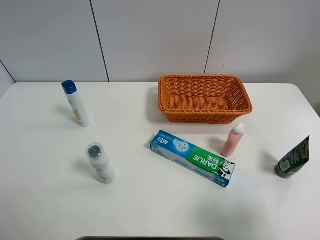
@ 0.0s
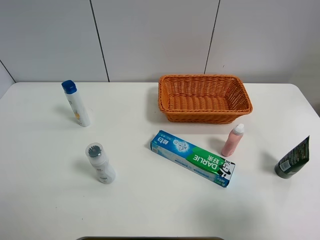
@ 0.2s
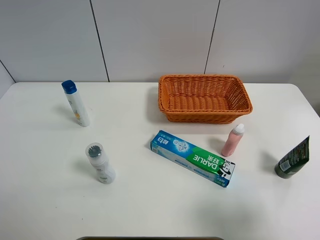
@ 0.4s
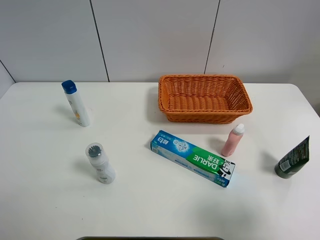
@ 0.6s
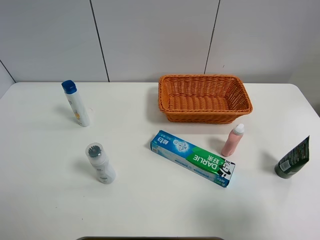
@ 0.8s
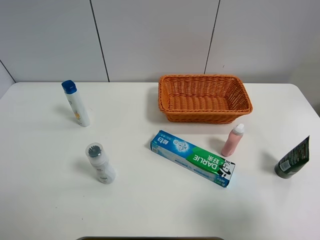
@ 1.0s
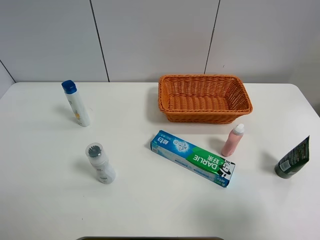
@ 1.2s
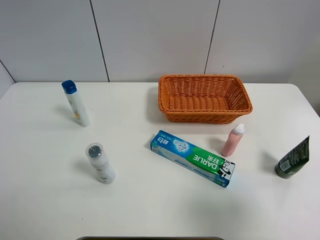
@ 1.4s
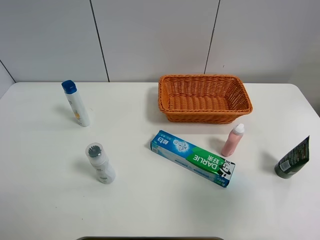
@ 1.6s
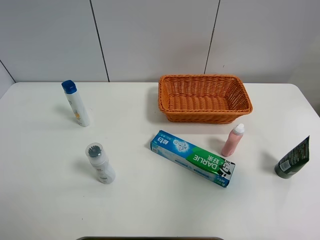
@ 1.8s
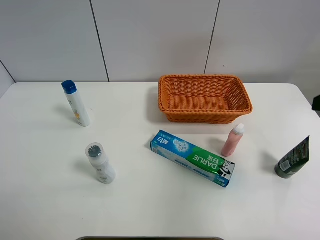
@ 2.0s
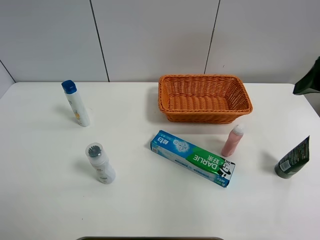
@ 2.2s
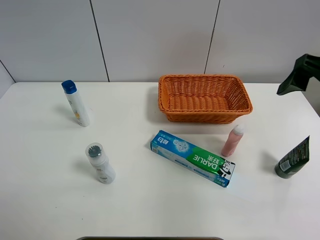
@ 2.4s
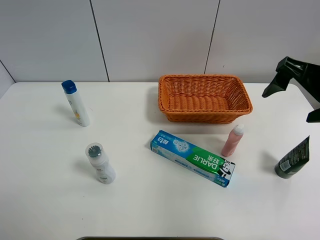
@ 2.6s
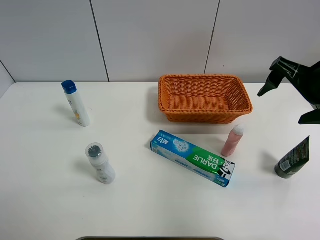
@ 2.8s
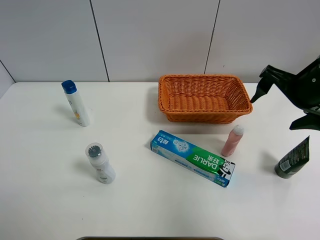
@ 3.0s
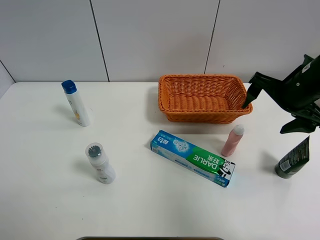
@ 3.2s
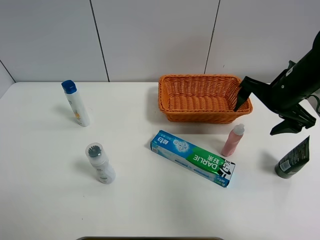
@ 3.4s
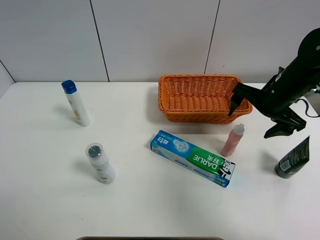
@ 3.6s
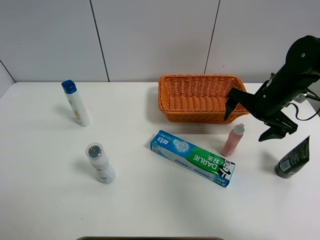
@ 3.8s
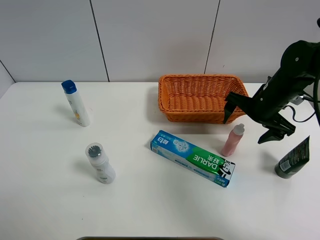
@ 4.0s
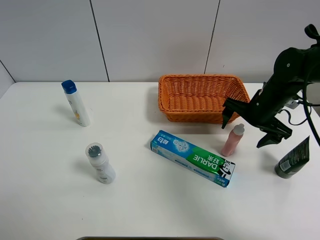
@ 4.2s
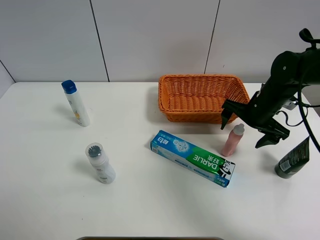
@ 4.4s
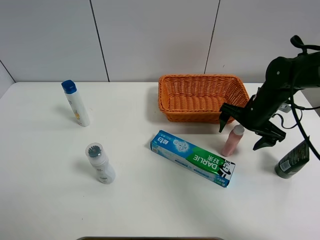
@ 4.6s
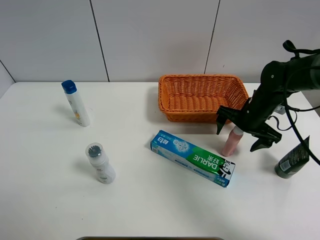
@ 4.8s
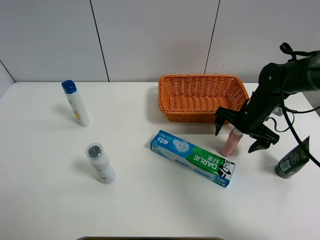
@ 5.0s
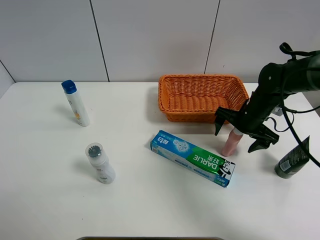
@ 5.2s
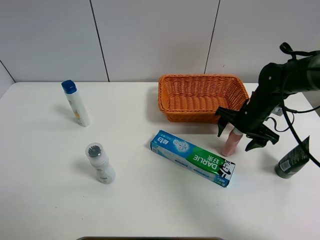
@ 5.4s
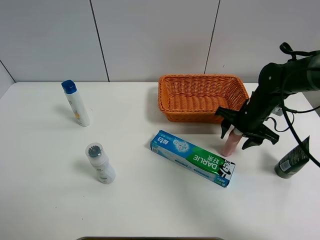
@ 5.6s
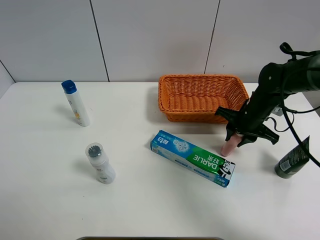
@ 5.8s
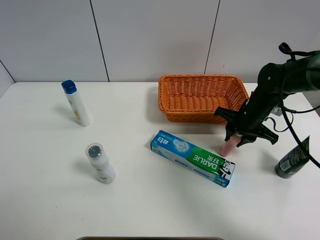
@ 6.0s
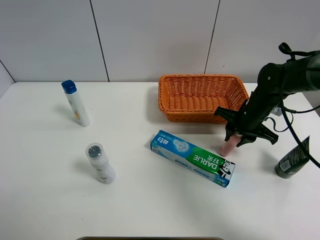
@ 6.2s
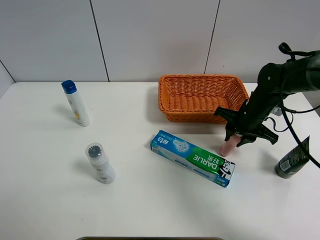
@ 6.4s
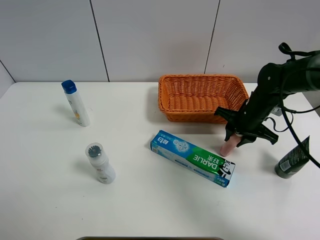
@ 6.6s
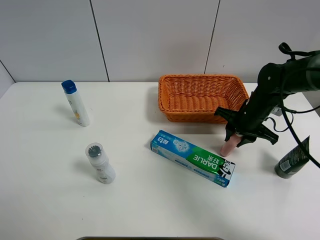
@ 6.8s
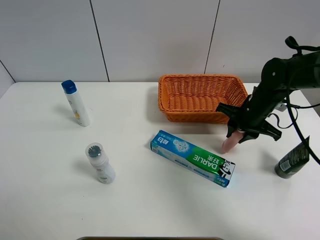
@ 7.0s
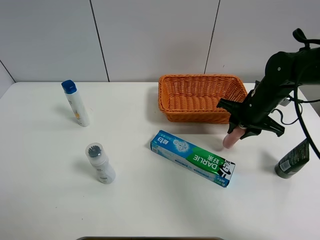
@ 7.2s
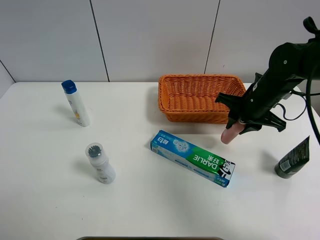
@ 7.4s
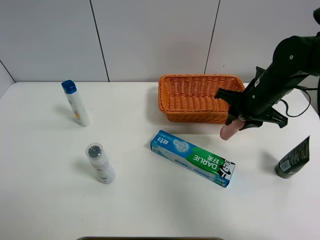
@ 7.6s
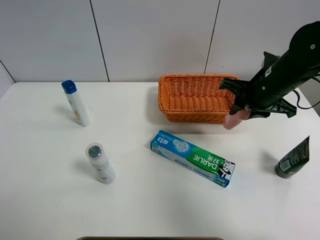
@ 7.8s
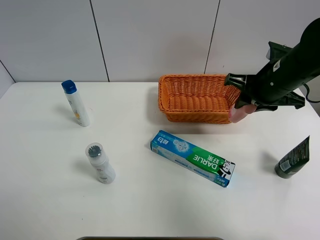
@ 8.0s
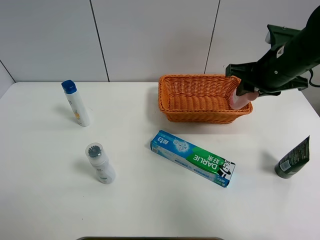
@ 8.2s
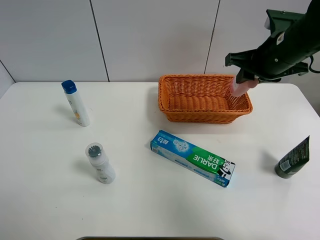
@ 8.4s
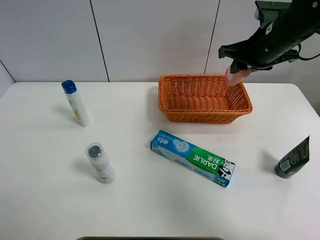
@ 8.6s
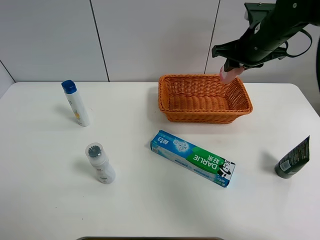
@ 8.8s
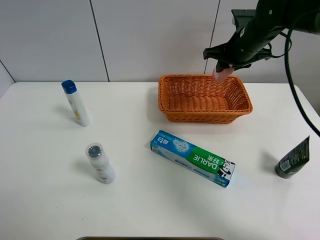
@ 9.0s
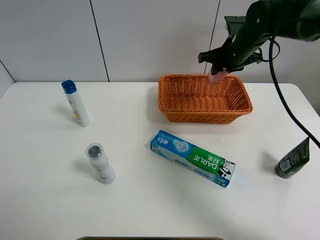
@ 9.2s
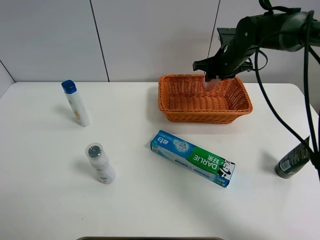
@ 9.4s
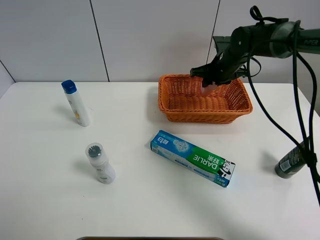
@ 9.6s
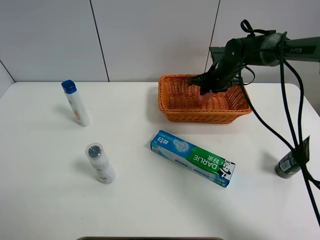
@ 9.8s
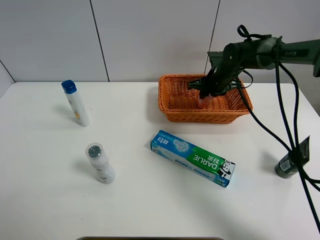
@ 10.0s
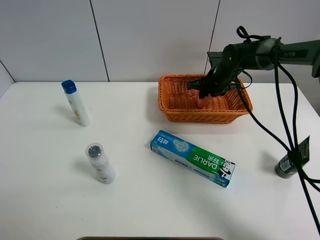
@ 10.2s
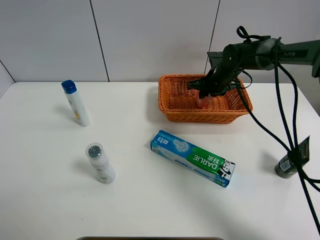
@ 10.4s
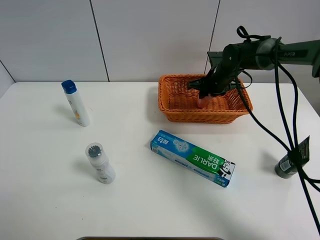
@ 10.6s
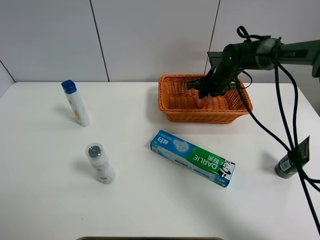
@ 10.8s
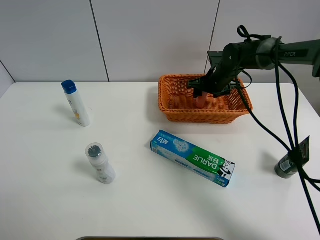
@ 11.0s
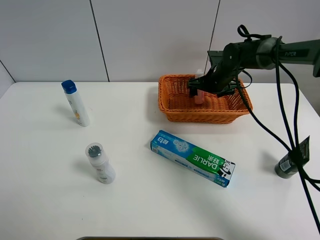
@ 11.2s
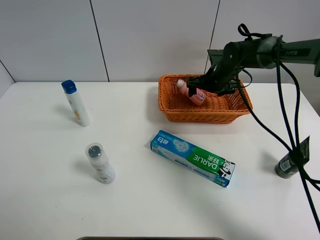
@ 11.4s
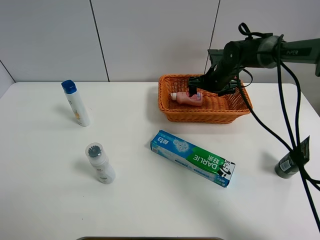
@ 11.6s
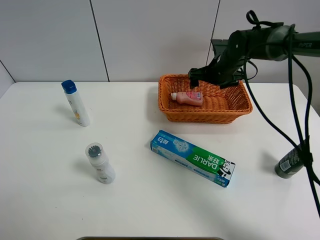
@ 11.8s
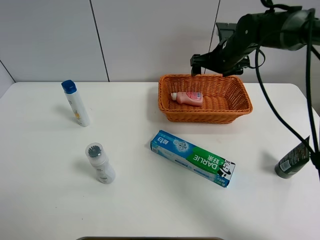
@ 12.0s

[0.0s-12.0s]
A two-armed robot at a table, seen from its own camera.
Task of the whole recording: Place the object closest to the toothpaste in the basket.
Step, 0.0s to 5.8s: Grasp the pink laundry detergent with right gripper.
Step, 6.0s to 12.0s: Place the pink laundry detergent in the basket with right gripper.
0.0s to 1.6s: The right gripper travels upward by some 5 cm.
1.6s to 3.0s: The right gripper moves forward, about 20 cm.
3.0s to 4.4s: The right gripper goes approximately 15 cm downward and forward.
4.4s to 6.0s: The right gripper closes up.
6.0s to 7.6s: The right gripper travels upward by roughly 10 cm.
7.6s to 9.0s: The right gripper shifts roughly 10 cm forward.
9.0s to 10.4s: The right gripper heads downward, covering roughly 10 cm.
10.4s to 12.0s: The right gripper travels upward by about 10 cm, and opens.

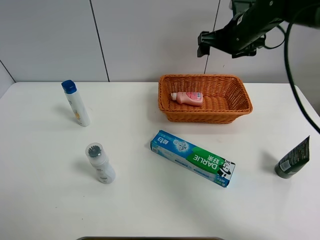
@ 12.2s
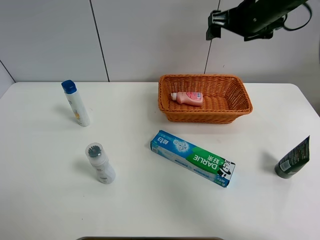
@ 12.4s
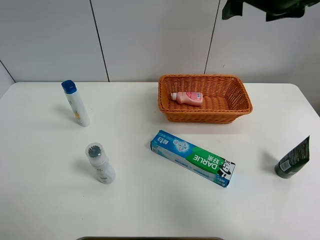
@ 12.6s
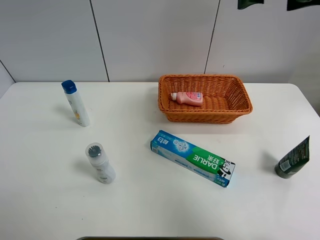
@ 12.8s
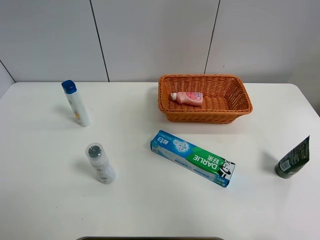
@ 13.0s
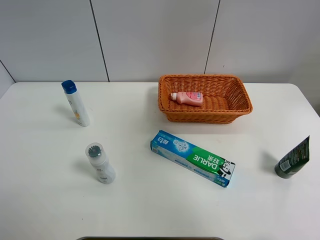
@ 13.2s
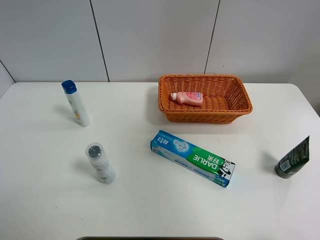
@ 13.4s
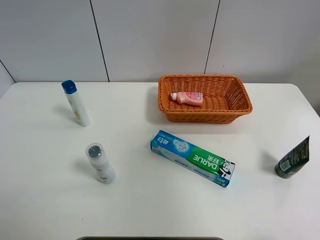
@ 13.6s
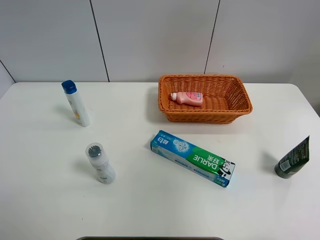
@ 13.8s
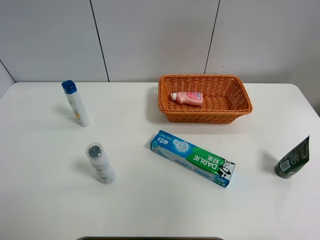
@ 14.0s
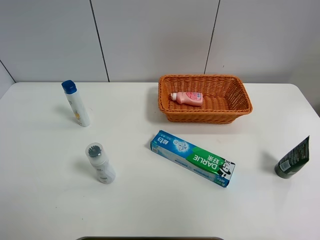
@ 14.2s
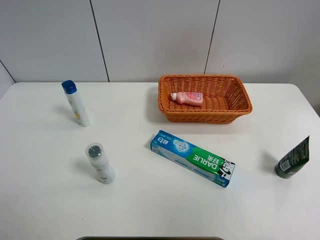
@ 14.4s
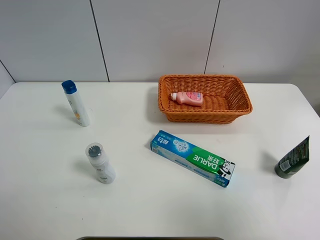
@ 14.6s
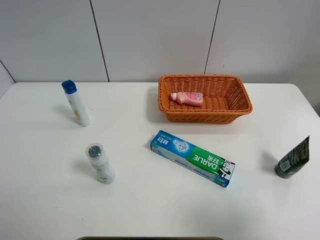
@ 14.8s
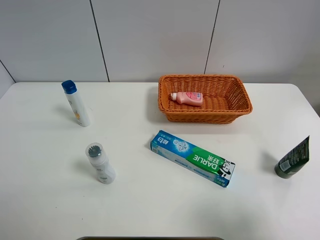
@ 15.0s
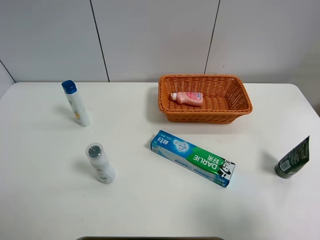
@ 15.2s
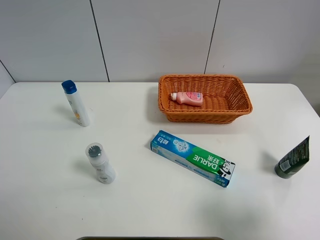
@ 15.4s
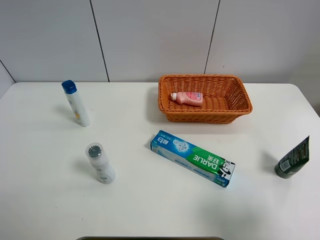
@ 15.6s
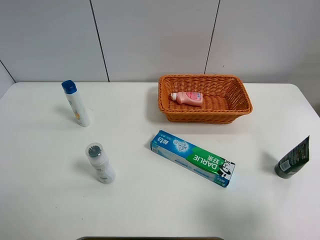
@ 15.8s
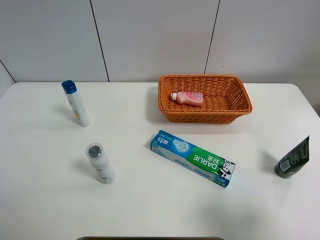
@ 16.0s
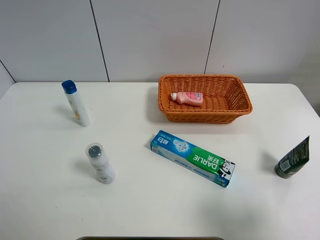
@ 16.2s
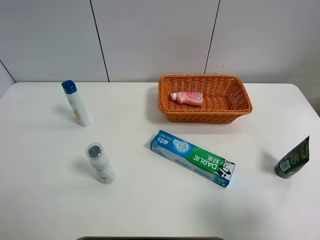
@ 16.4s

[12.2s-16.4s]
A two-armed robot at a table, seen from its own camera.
Task of the whole recording: Place the object closest to the toothpaste in the basket.
12.2s to 13.6s: The right gripper is displaced backward and upward by approximately 40 cm.
13.6s to 15.0s: The right gripper goes approximately 25 cm downward and backward.

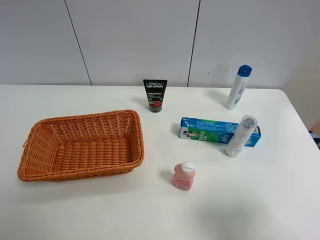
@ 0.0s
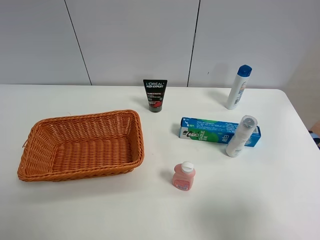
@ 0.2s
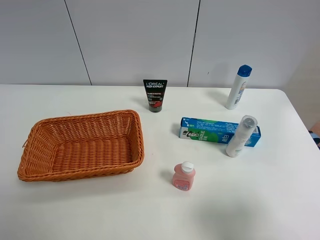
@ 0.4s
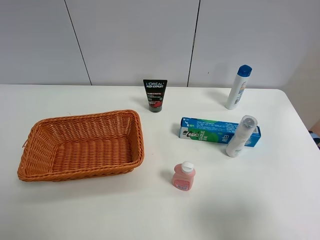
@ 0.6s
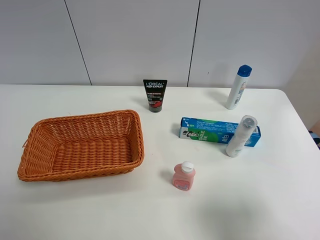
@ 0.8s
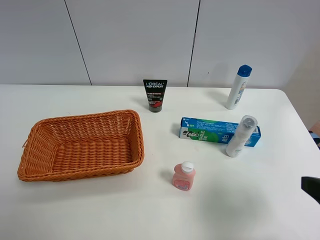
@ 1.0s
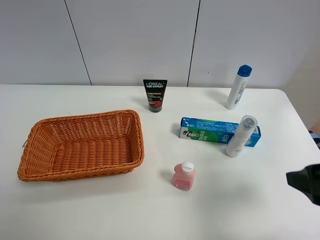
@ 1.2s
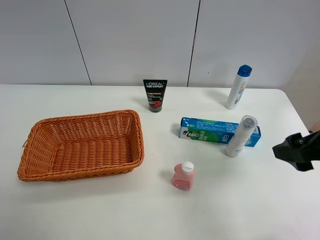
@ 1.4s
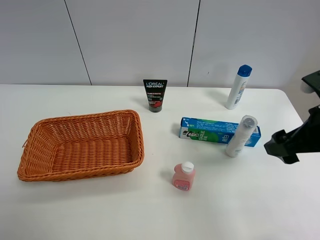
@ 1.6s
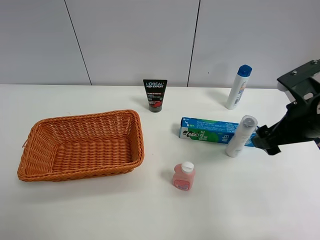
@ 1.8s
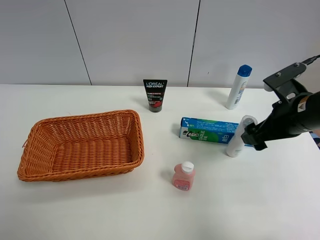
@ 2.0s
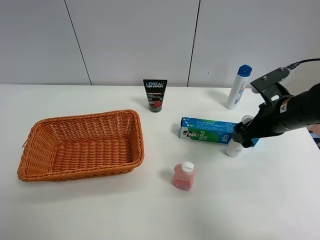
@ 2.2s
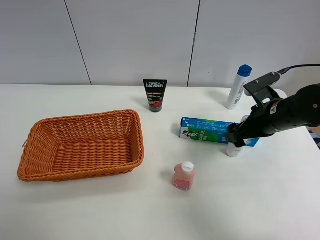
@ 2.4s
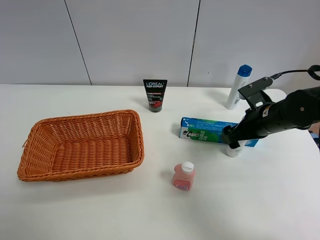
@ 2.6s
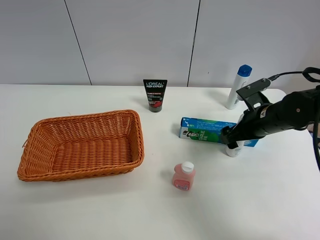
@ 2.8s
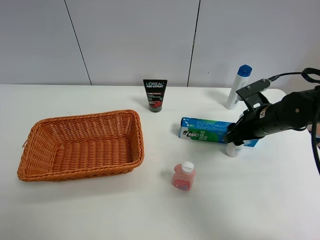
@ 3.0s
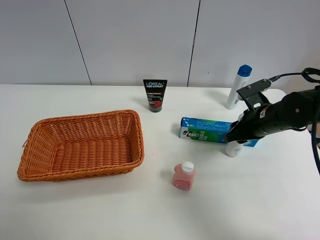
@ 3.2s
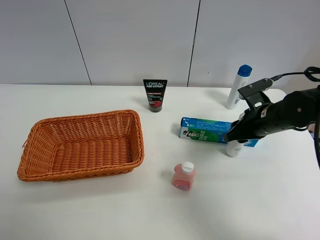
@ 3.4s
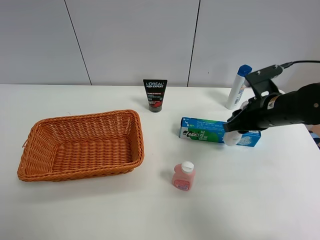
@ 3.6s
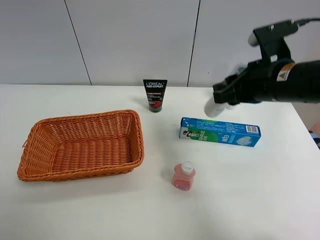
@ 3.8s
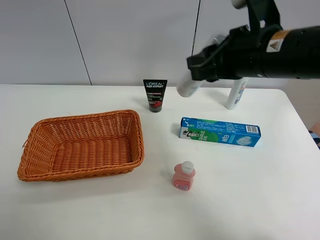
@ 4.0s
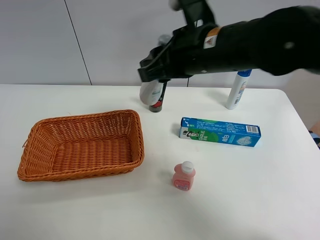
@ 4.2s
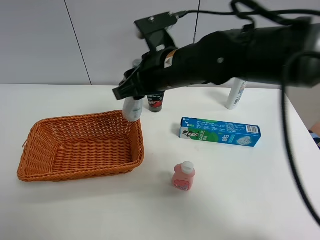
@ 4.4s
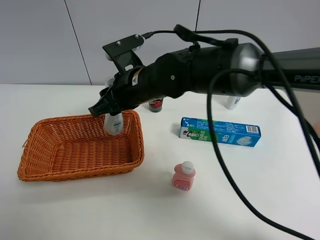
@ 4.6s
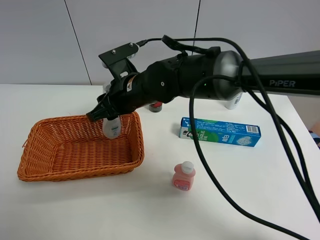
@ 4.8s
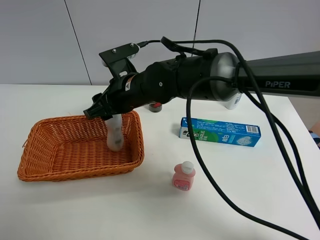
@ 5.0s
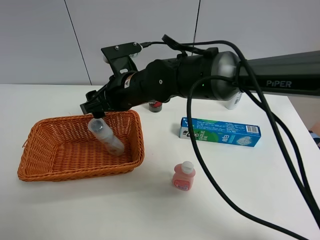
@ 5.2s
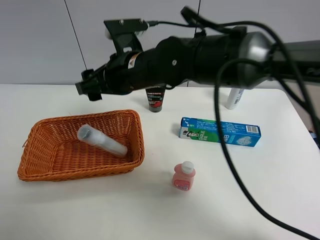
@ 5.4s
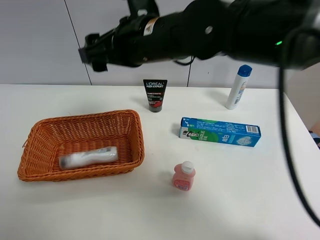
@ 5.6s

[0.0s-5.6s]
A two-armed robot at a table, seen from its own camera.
Task of the whole recording: Place the object closest to the toothpaste in the basket.
Step, 0.0s to 3.2s: Grasp the cleaning agent with right gripper.
Step, 3.4s to 5.2s: Place the cleaning agent in the basket with right gripper.
0.0s to 1.4s: The right gripper goes approximately 15 cm forward.
1.4s to 2.8s: The right gripper heads forward and downward, covering some 20 cm.
2.8s to 4.2s: The right gripper shifts about 25 cm to the left and upward, and closes.
4.2s to 5.6s: The right gripper travels to the left by some 5 cm, reaches roughly 10 cm downward, then returns, and opens its fingers.
